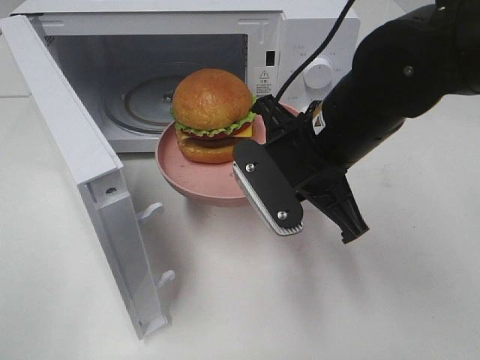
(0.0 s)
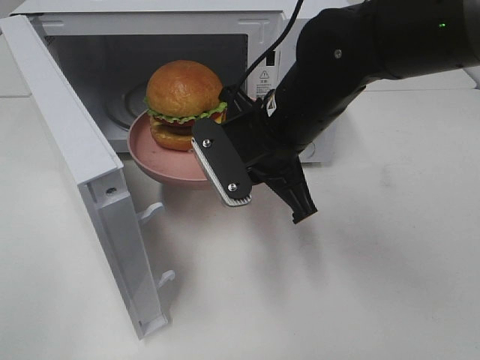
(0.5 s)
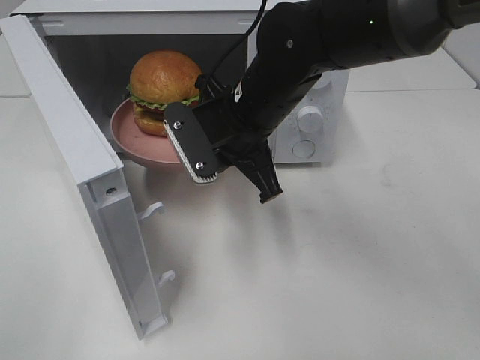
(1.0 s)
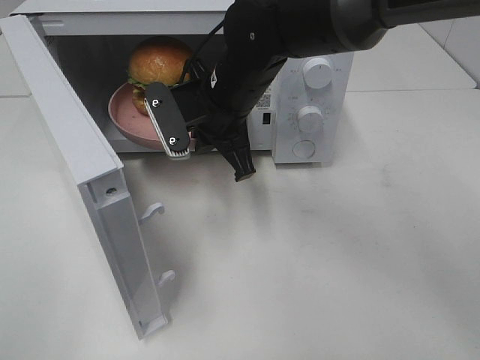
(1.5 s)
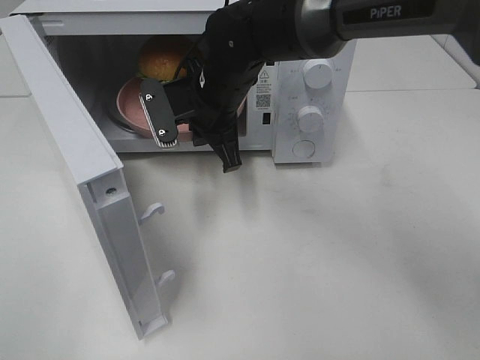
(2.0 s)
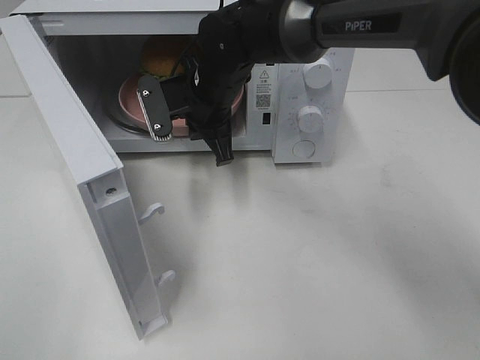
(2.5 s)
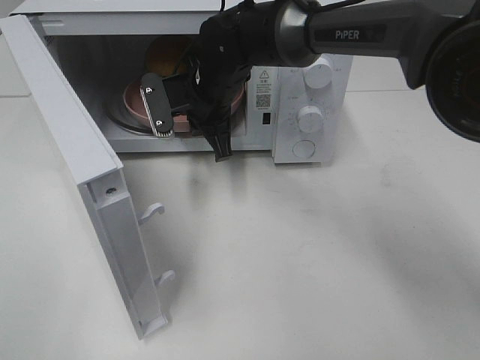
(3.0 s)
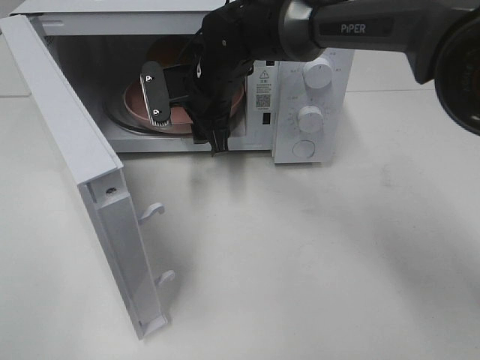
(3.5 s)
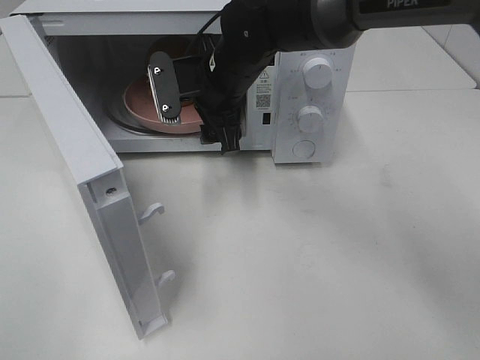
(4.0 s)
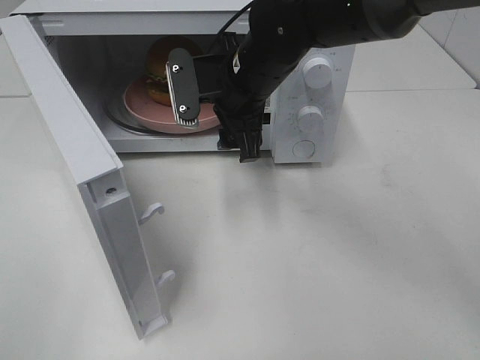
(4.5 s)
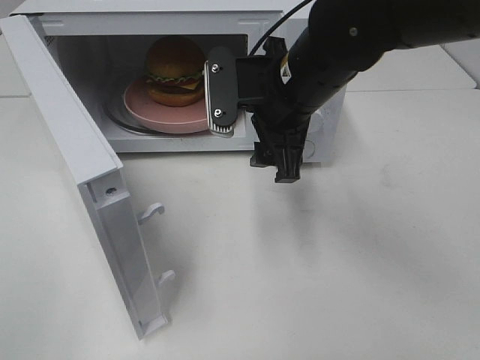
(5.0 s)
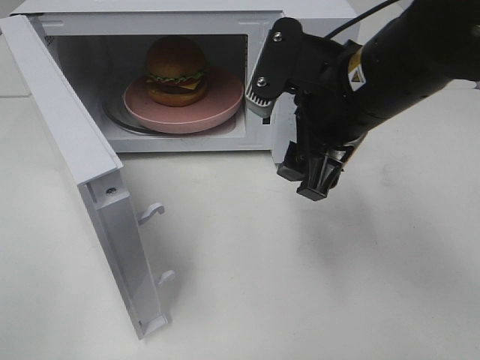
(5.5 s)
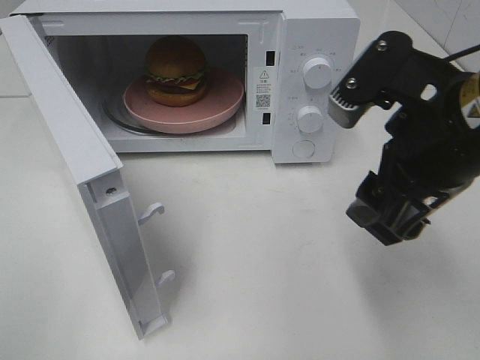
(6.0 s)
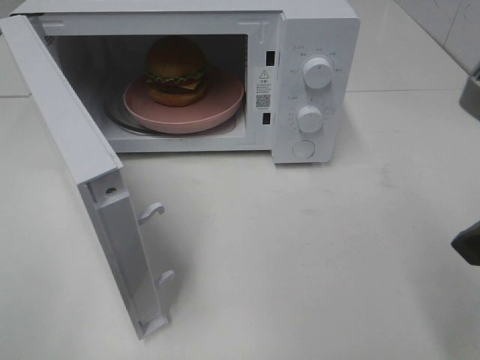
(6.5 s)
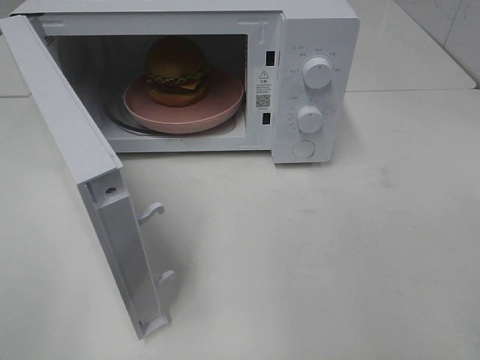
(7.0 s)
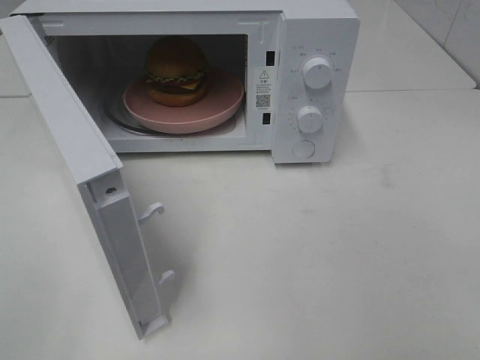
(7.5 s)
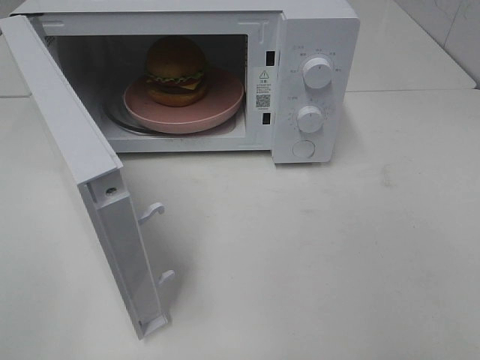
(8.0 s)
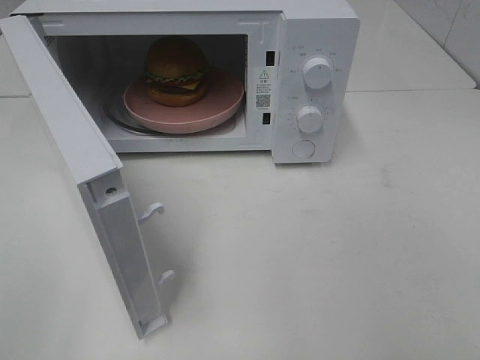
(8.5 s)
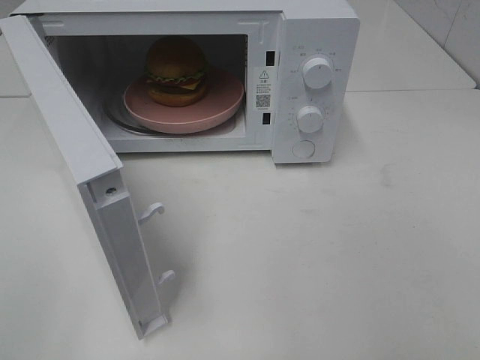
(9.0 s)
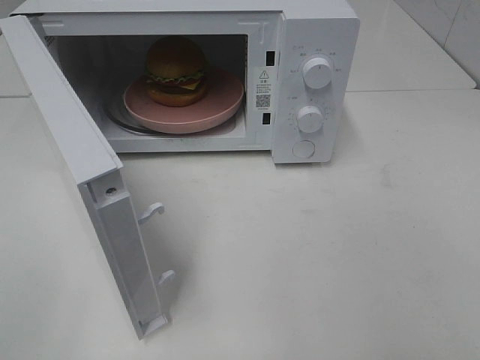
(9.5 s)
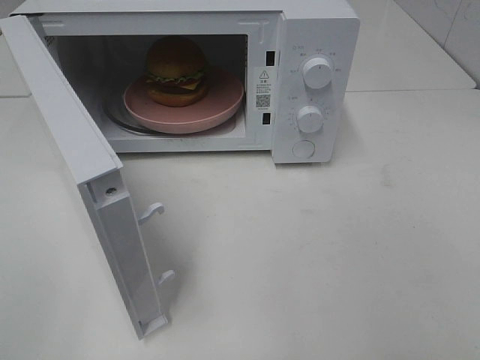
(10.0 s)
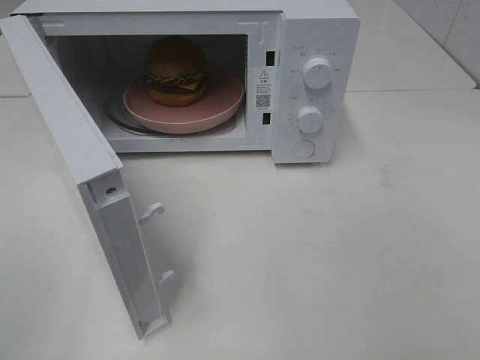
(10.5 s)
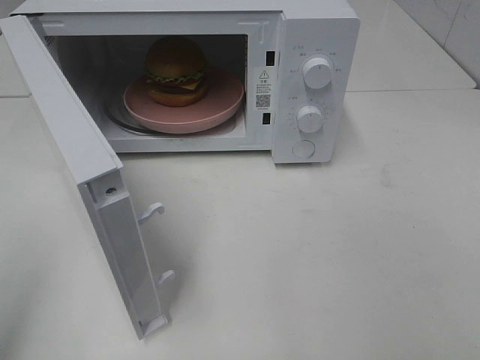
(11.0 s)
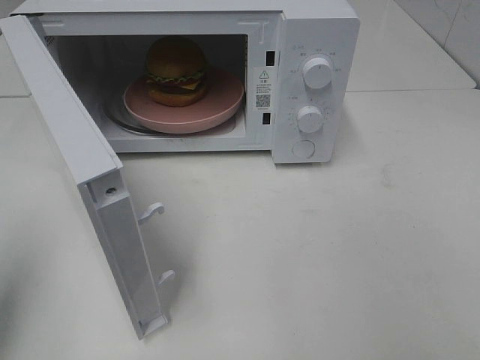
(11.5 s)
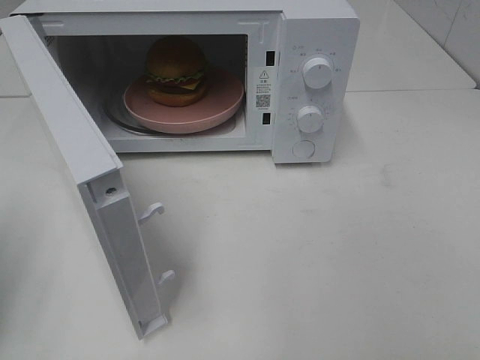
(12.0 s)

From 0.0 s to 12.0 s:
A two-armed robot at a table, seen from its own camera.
Task of the whole recording: Heat the burger.
Step, from 0.0 s to 3.5 s: Right hand: place the plate in the microwave.
From 0.0 s to 2.0 s: The right gripper goes roughly 15 cm forward and to the left.
From 2.0 s to 4.0 s: The right gripper opens.
From 4.0 s to 6.0 s: The right gripper heads backward and to the right, covering about 25 cm.
From 6.0 s to 8.0 s: The right gripper travels backward and to the right by roughly 25 cm.
From 8.0 s to 10.0 s: Both grippers stay put.
From 10.0 s to 12.0 s: The left gripper moves forward, about 15 cm, and closes its fingers.

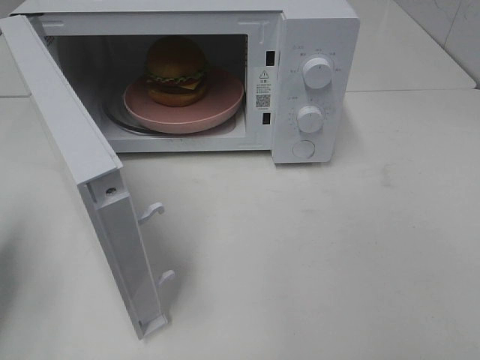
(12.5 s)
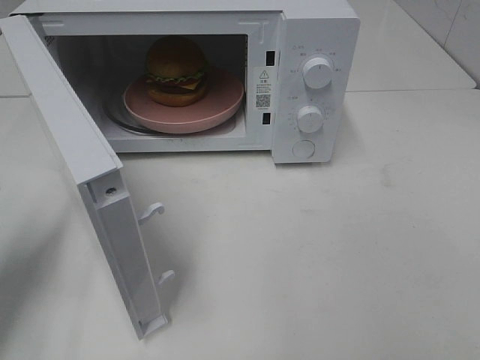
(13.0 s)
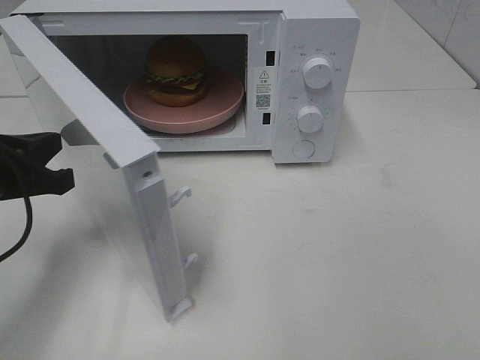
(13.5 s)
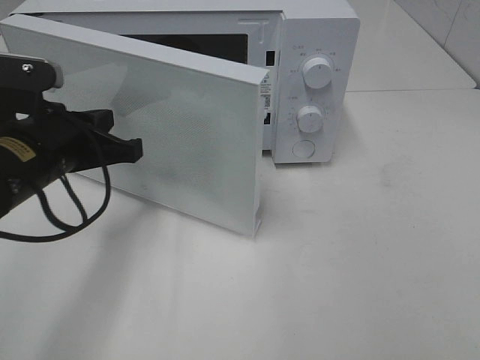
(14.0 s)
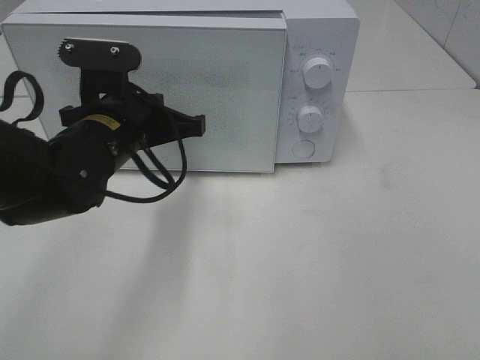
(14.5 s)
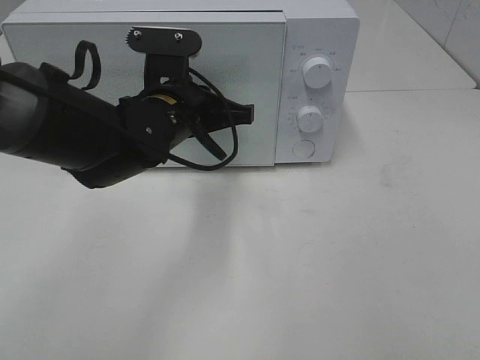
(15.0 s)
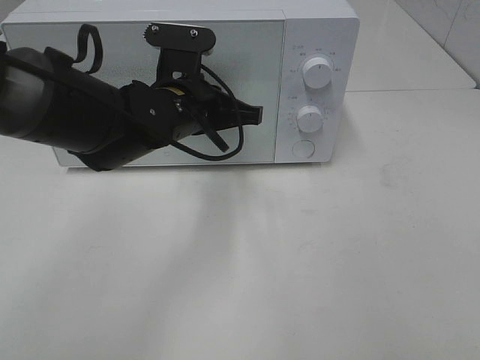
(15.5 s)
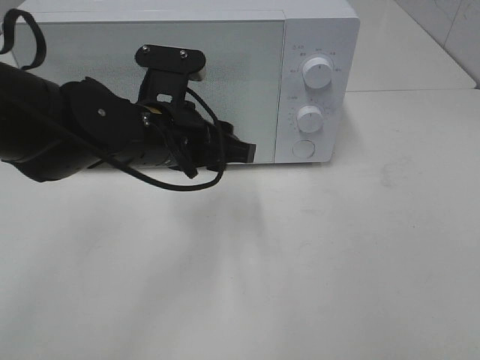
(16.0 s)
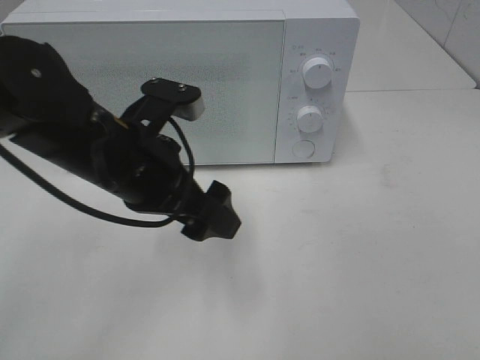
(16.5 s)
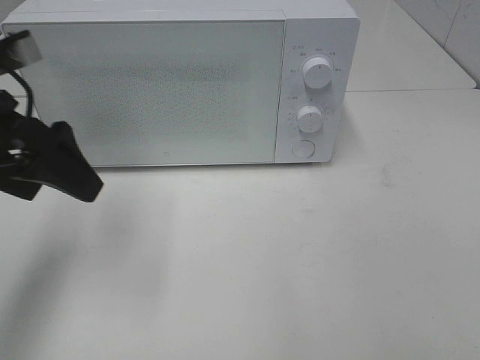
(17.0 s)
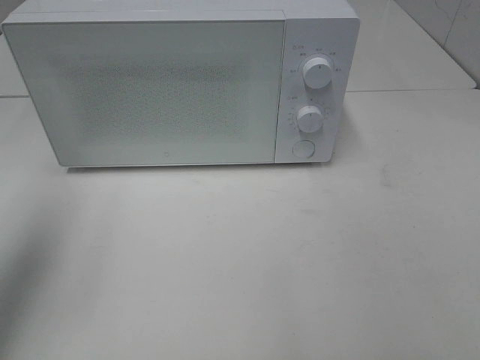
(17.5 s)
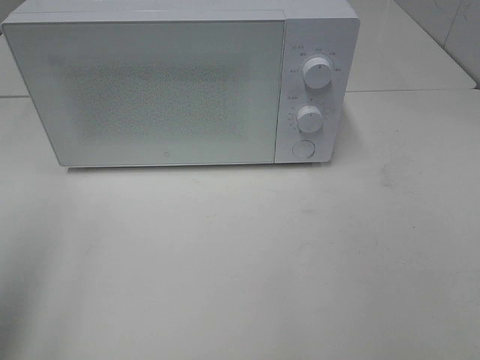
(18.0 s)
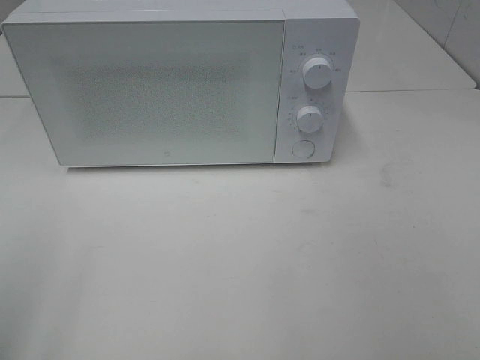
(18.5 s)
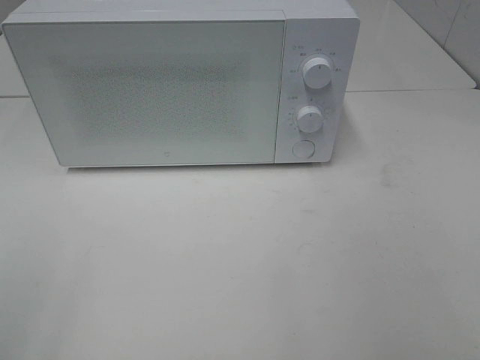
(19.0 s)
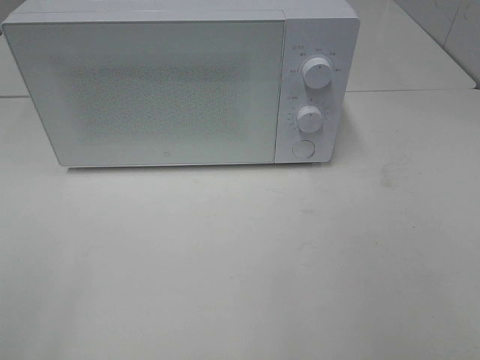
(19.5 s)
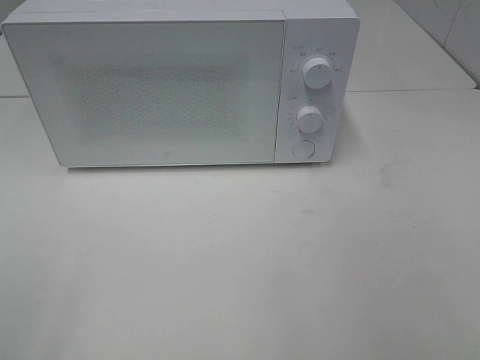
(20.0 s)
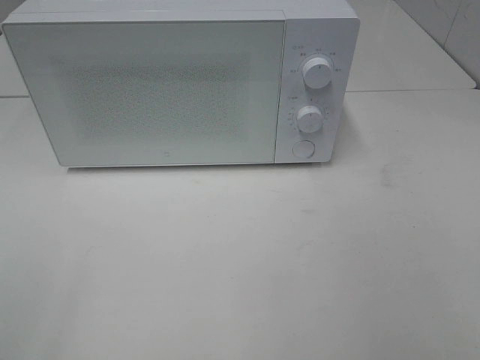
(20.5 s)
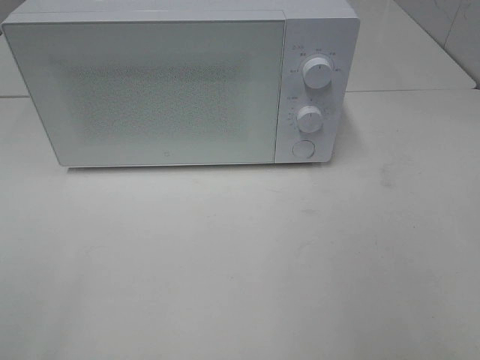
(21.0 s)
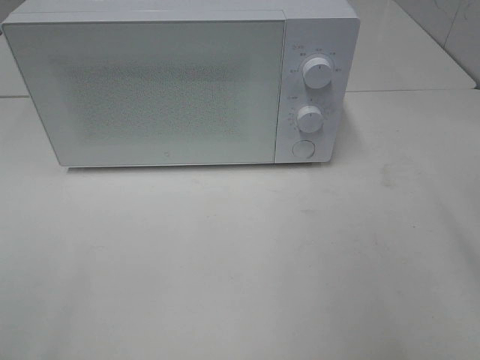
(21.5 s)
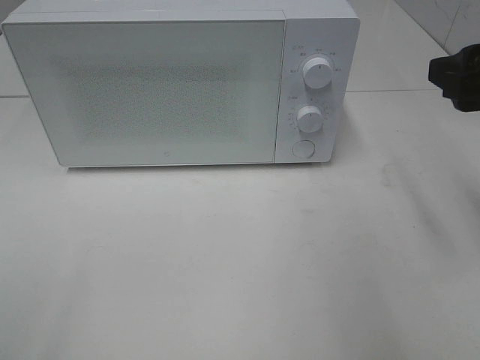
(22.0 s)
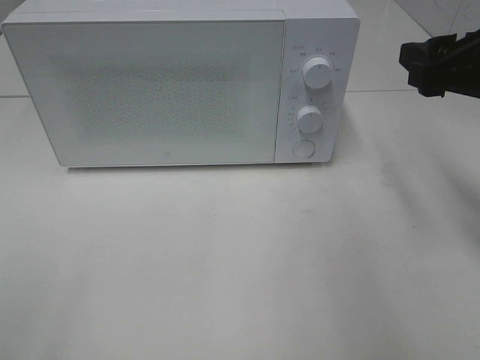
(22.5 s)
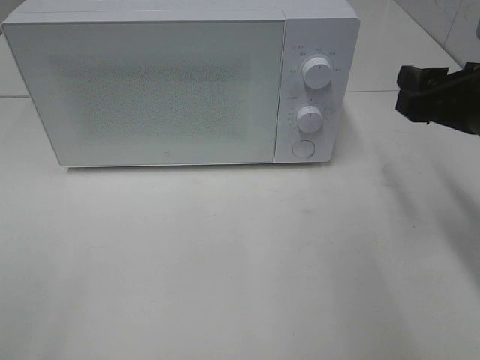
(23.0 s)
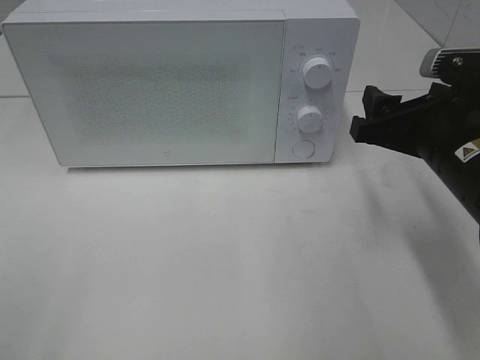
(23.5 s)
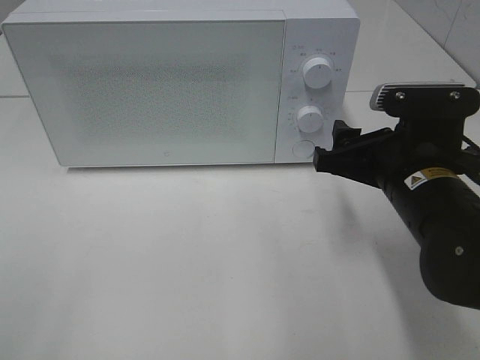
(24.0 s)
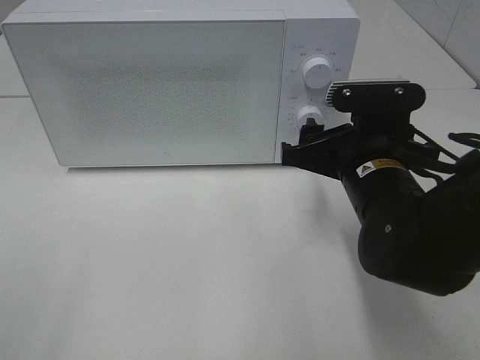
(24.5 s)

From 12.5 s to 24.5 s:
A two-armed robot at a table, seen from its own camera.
Task of the whole recording: Heat the burger.
Step, from 12.5 s to 16.0 s: Left hand: close the microwave door.
From 12.5 s to 14.5 s: The left gripper shifts about 25 cm to the right and forward.
From 14.5 s to 16.5 s: The left gripper shifts about 5 cm backward, and opens its fingers.
From 16.5 s to 18.5 s: The left gripper is displaced to the left, backward and upward by roughly 30 cm.
From 20.5 s to 22.5 s: The right gripper travels forward by approximately 25 cm.
From 22.5 s to 24.5 s: The right gripper moves to the left and downward, roughly 15 cm.

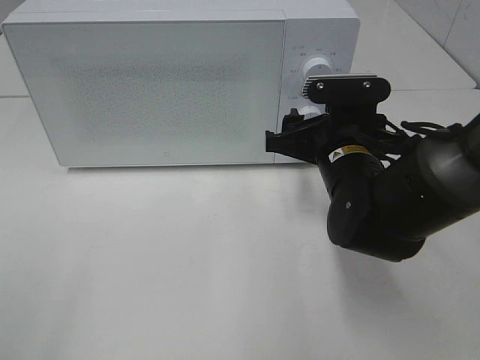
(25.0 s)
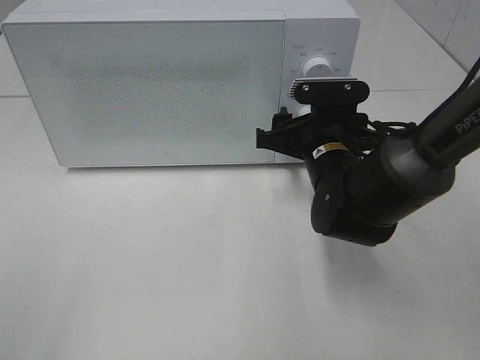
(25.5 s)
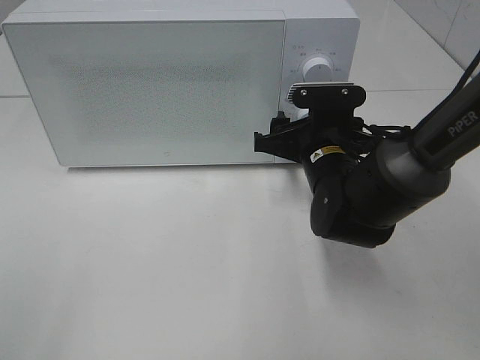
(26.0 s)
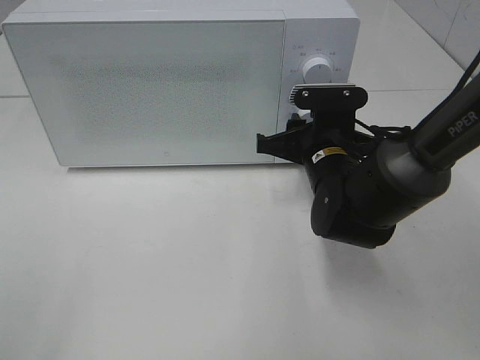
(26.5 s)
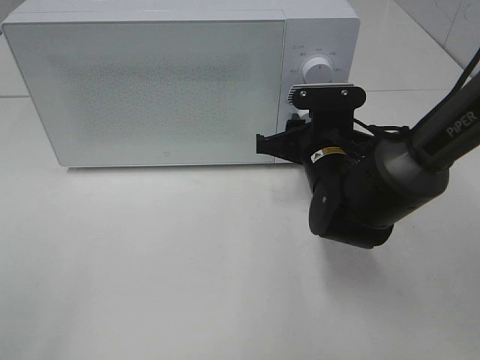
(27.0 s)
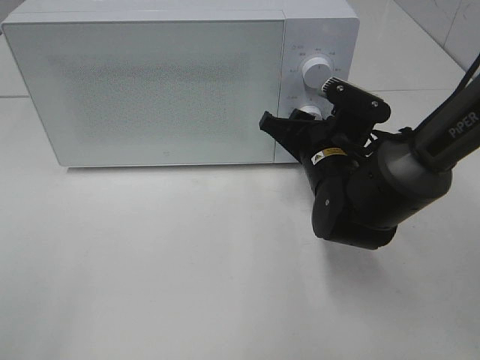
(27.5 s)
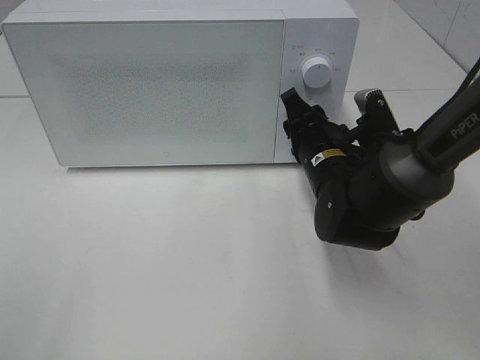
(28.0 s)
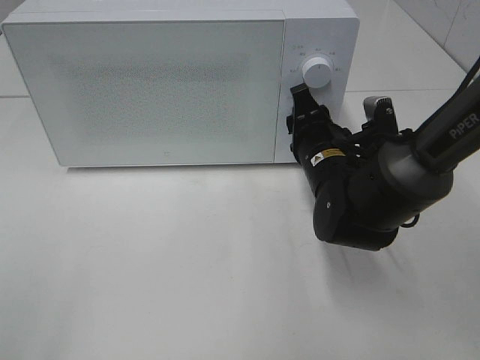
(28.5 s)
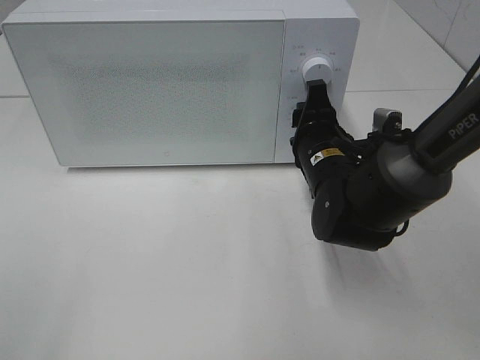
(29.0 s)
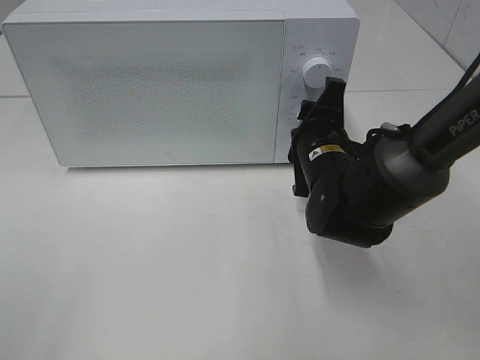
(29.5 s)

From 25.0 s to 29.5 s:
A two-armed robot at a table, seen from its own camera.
Task of the whole recording: Heat the burger.
From 25.0 s to 27.0 s: The right gripper closes up.
